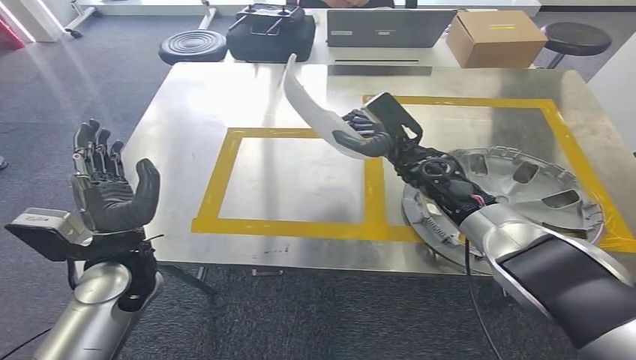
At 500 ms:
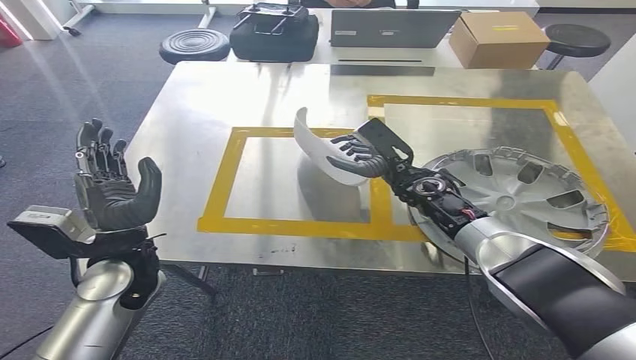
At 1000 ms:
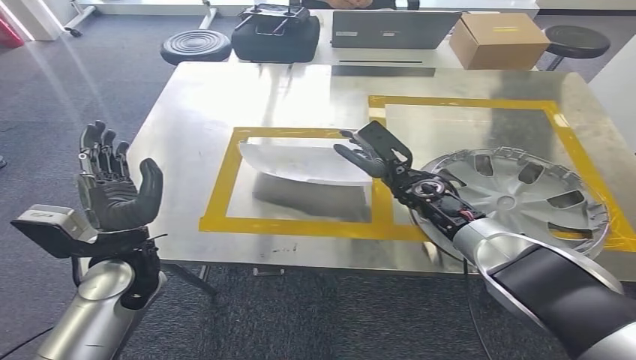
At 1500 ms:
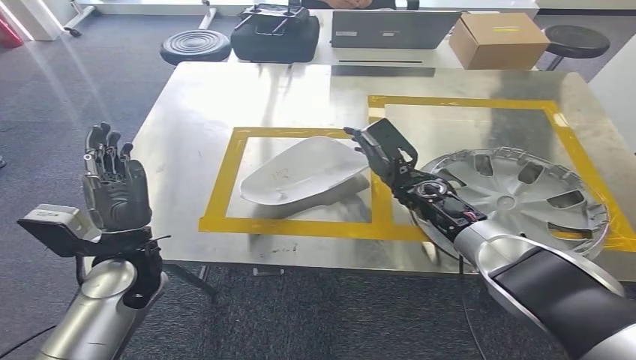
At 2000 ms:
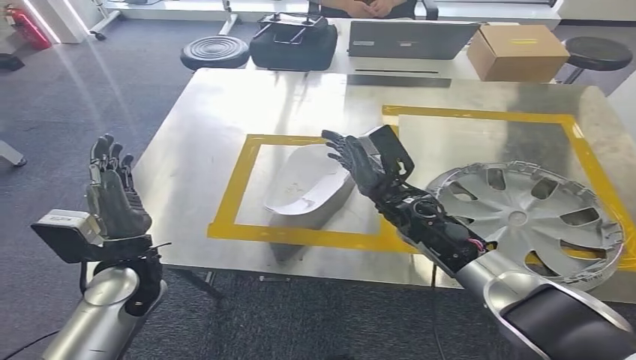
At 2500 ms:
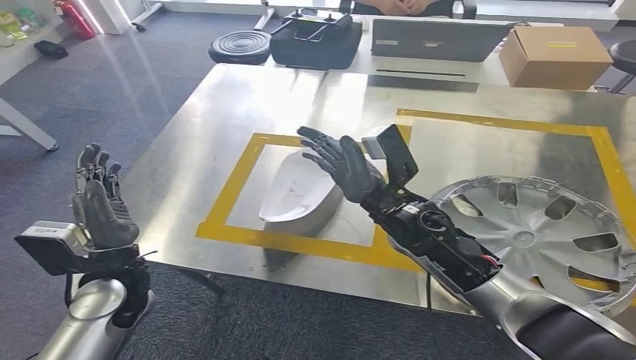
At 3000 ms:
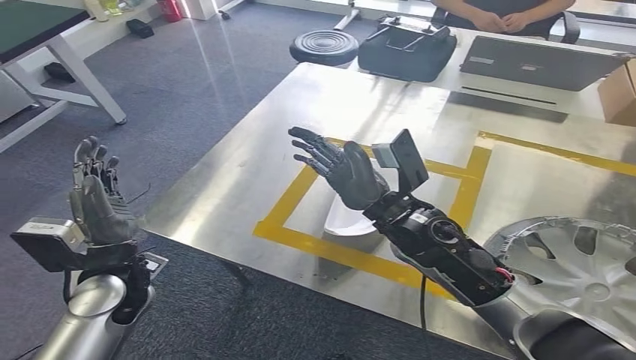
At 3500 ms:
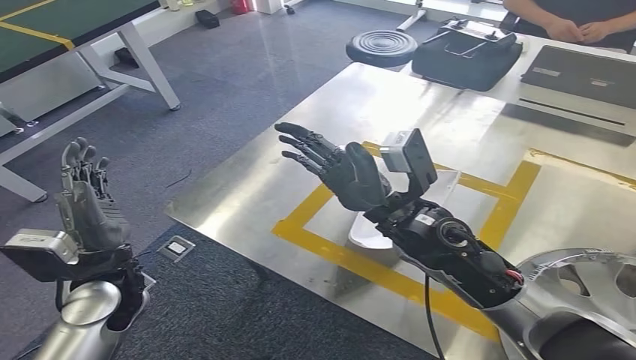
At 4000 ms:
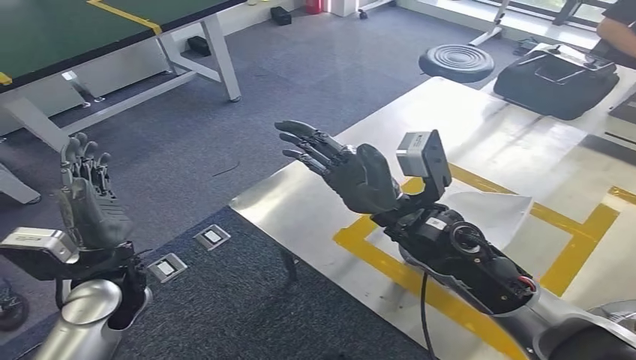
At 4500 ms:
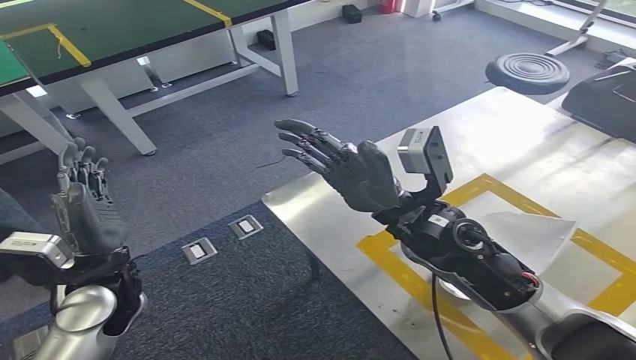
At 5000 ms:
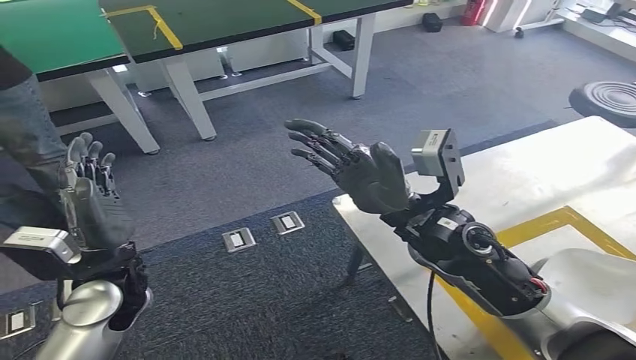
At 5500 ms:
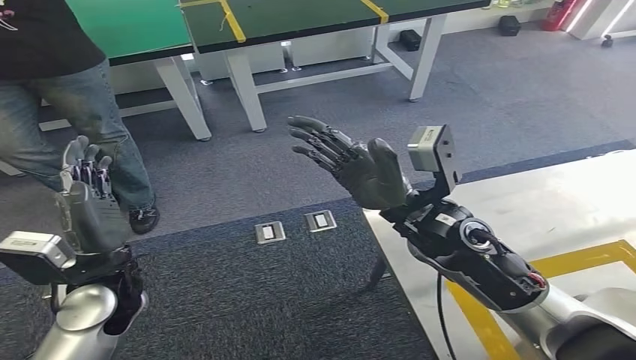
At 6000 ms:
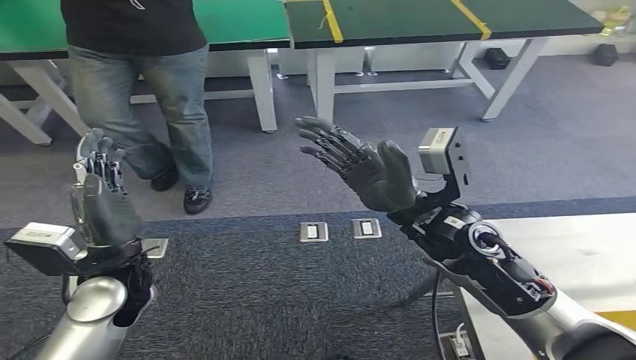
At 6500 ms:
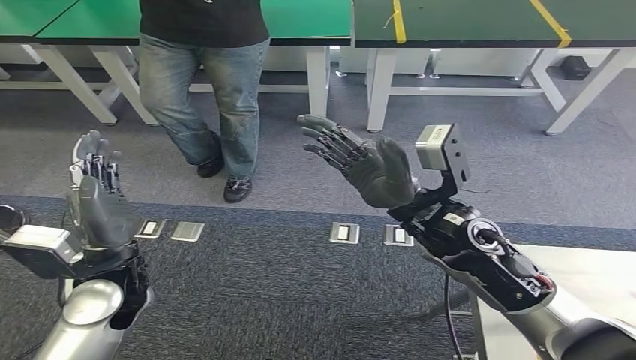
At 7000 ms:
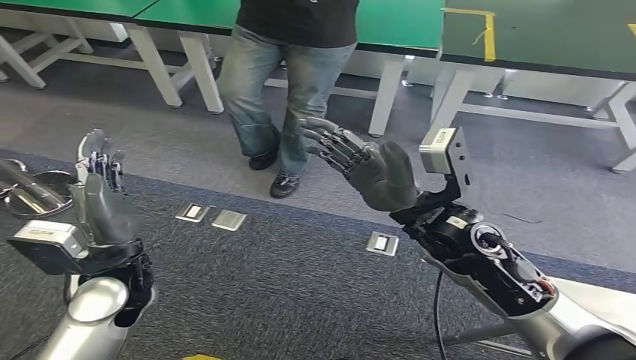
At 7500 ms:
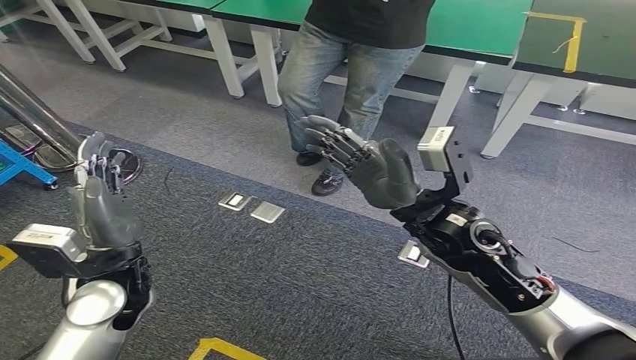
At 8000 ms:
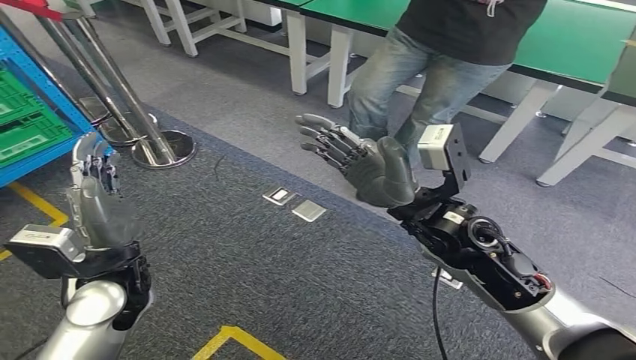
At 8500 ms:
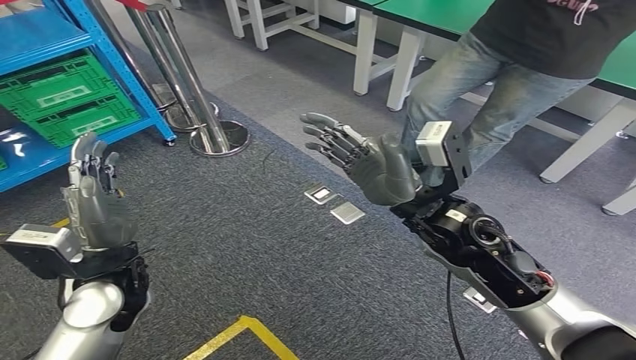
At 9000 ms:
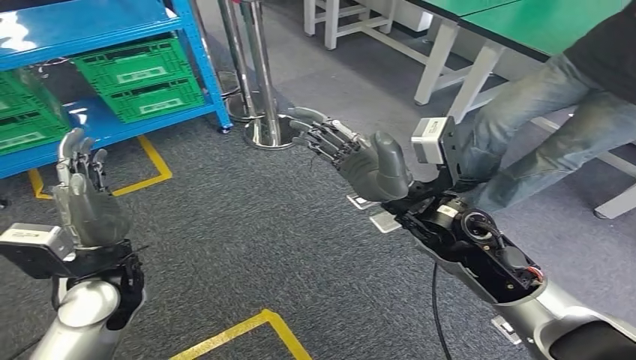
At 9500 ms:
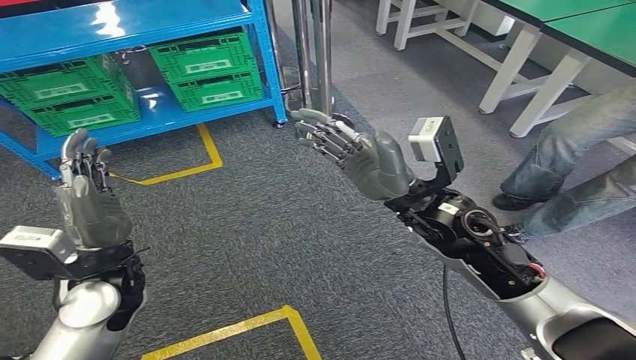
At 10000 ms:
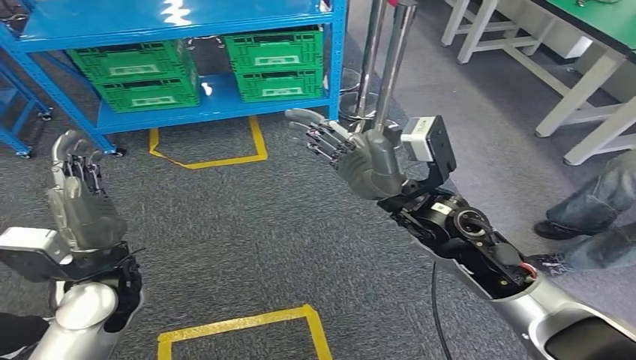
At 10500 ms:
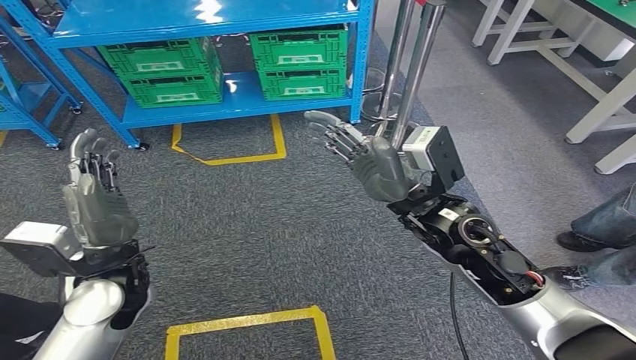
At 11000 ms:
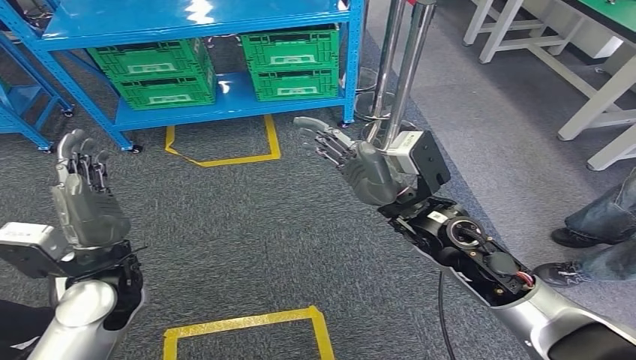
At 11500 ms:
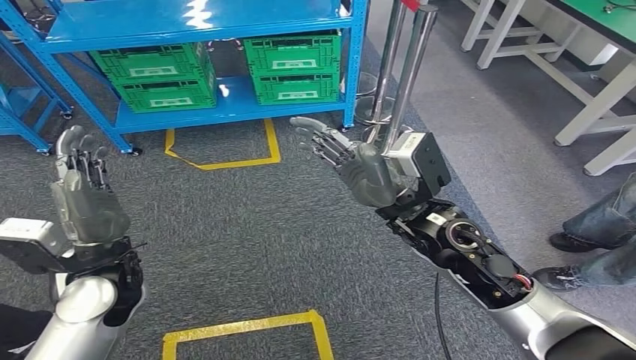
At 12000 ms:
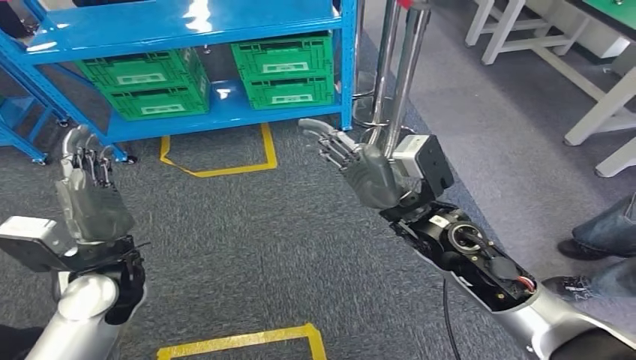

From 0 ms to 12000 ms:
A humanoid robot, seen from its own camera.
Step, from 0 ms to 4000 ms: Insert the small parts into the corresponding holes on the workbench.

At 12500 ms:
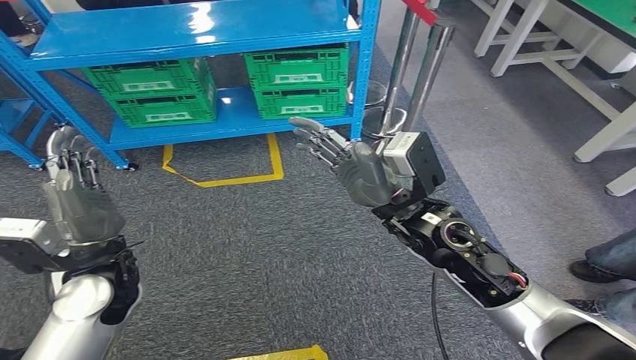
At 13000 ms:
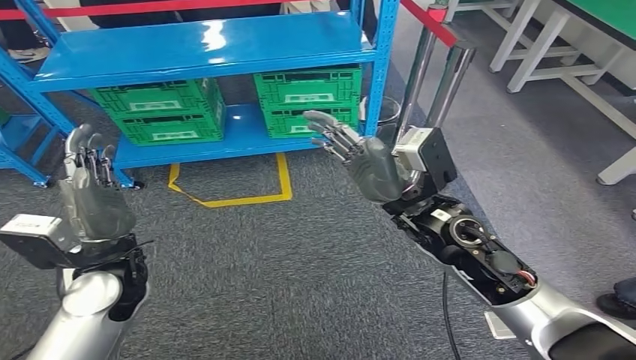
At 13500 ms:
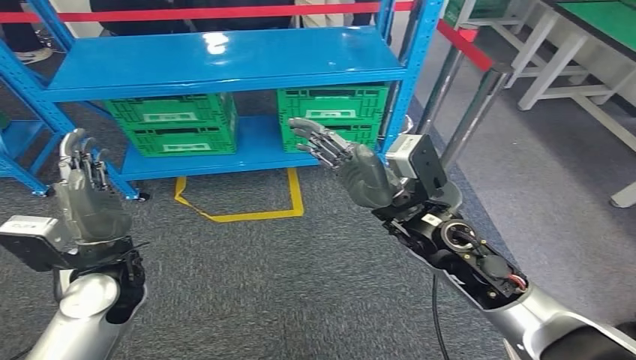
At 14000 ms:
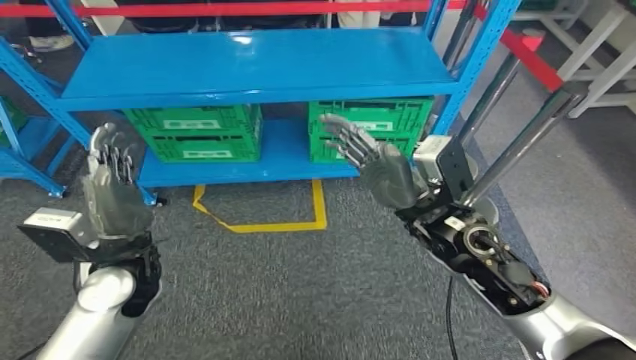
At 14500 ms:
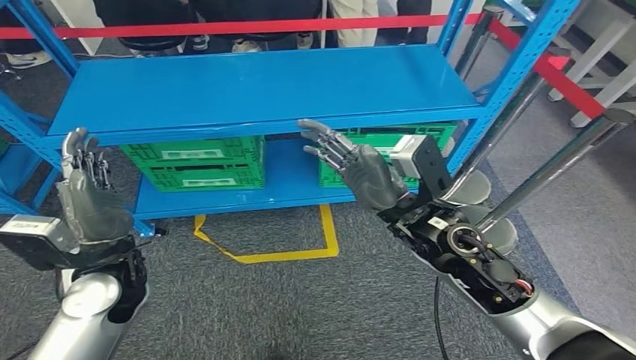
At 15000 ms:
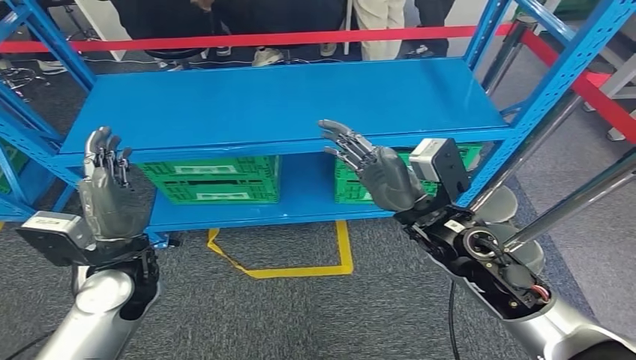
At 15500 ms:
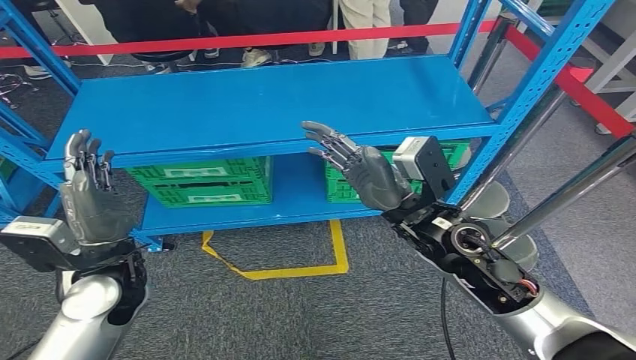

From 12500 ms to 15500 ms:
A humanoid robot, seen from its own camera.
Step, from 12500 ms to 15500 ms: Move to the initial position at the workbench.
